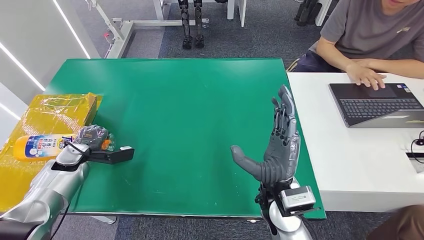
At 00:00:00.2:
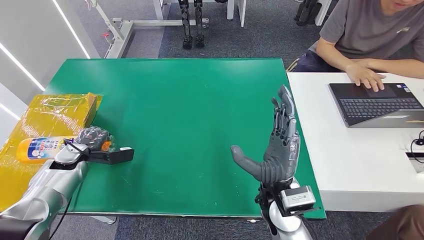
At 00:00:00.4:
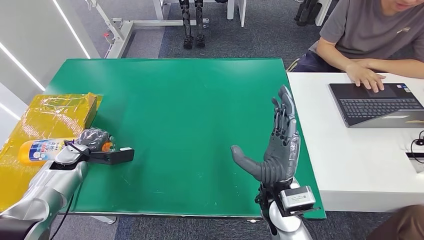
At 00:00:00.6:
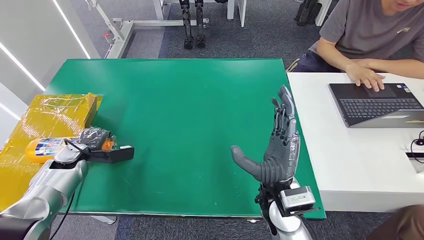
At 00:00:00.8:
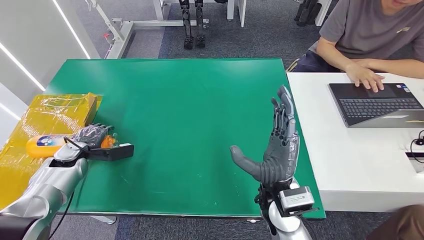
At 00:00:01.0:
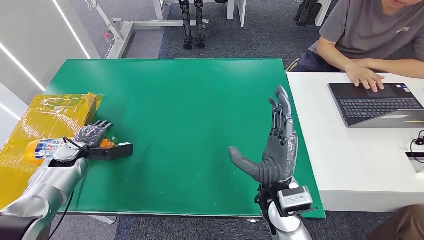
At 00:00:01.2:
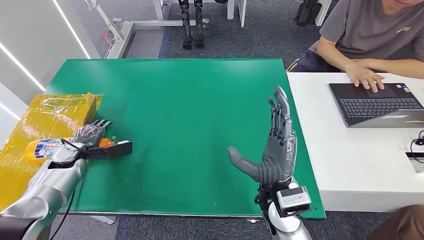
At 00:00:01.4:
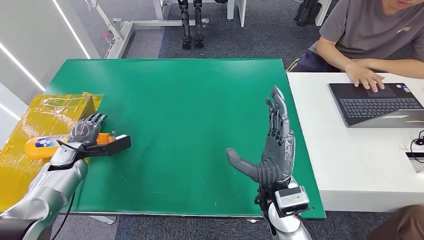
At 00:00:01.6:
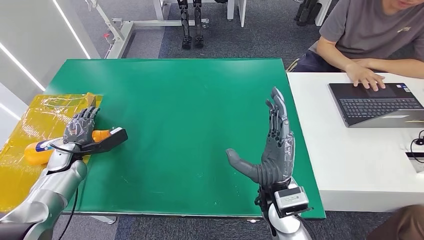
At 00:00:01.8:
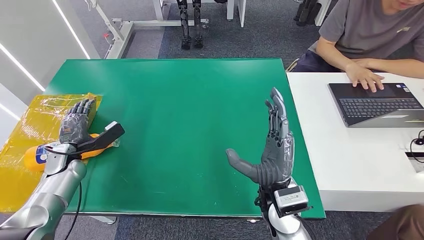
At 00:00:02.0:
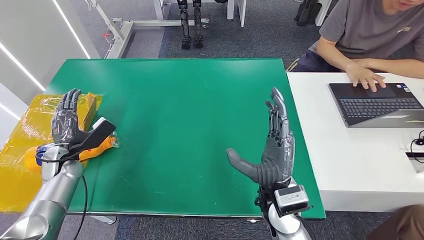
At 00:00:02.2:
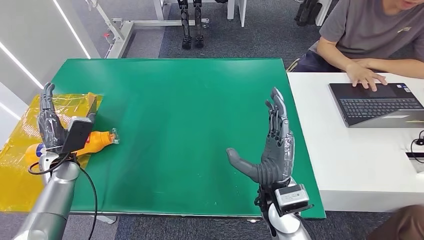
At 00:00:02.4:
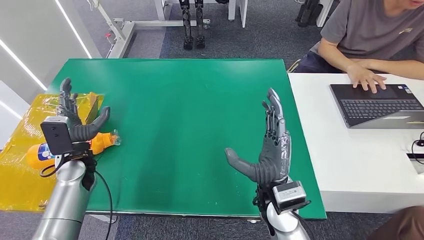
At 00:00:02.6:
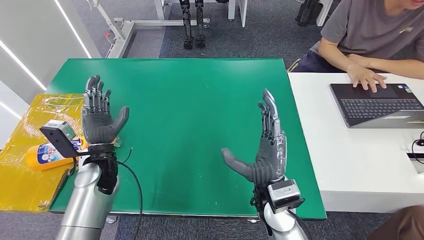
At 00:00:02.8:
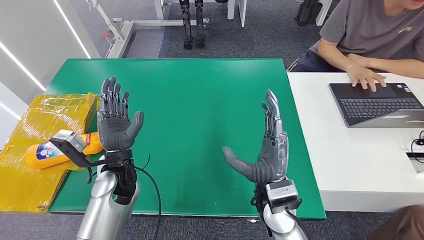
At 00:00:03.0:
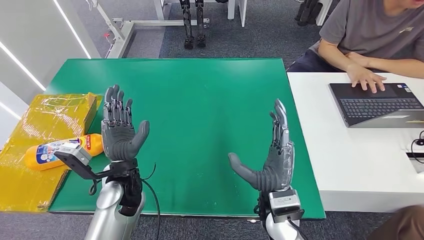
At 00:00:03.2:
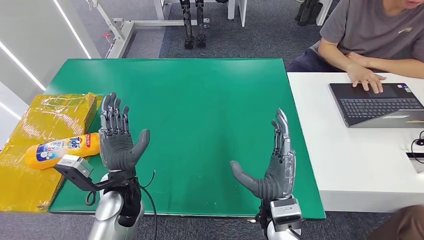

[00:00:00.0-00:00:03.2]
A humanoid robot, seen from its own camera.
Step, 00:00:00.0 to 00:00:03.2: Turn the bottle to the front side.
00:00:01.6 to 00:00:03.2: The left hand shifts some 25 cm to the right and backward.
